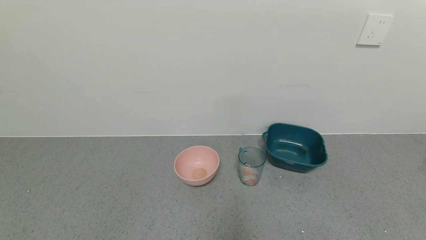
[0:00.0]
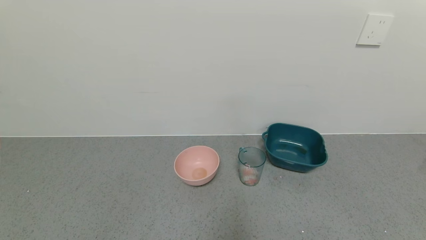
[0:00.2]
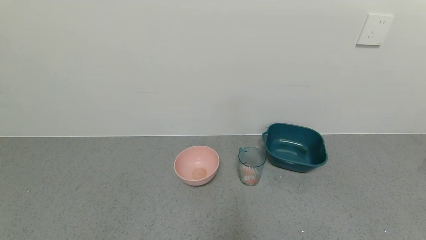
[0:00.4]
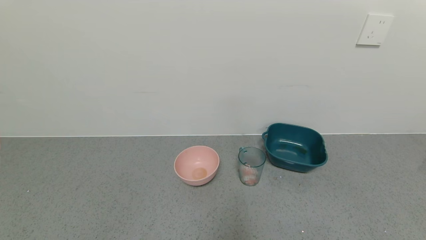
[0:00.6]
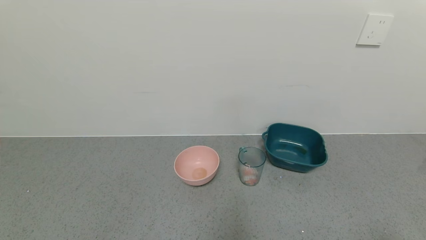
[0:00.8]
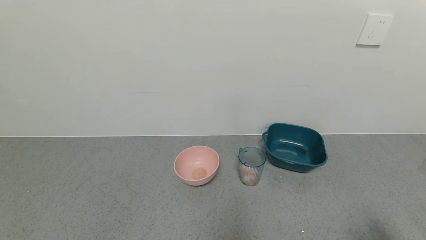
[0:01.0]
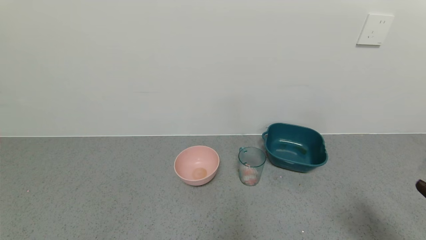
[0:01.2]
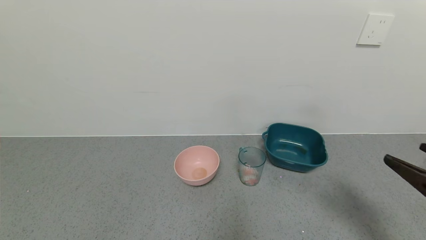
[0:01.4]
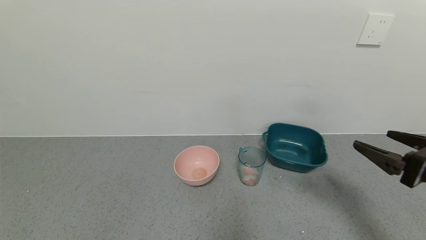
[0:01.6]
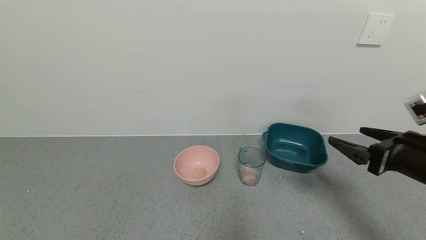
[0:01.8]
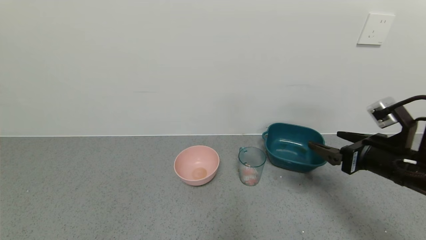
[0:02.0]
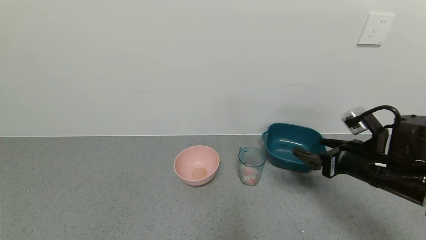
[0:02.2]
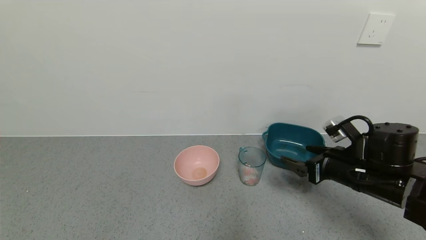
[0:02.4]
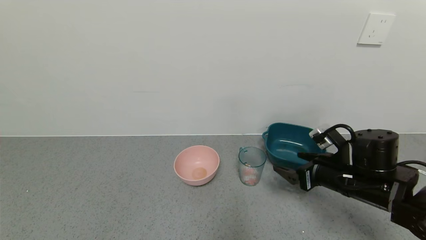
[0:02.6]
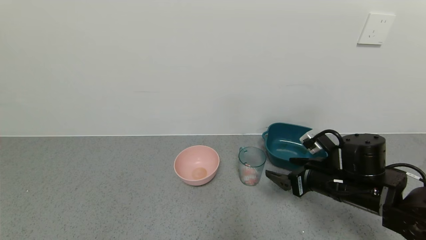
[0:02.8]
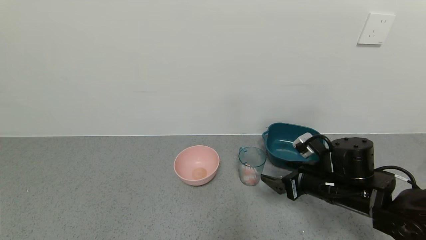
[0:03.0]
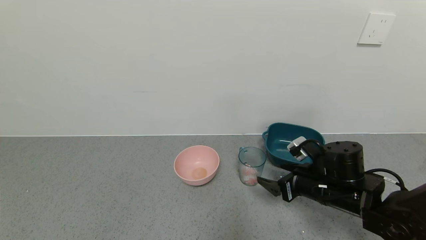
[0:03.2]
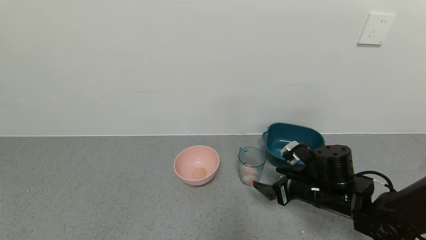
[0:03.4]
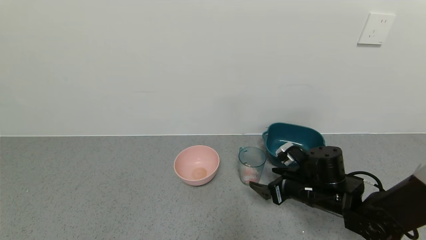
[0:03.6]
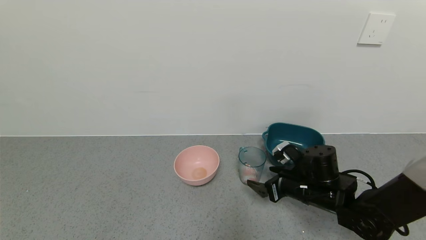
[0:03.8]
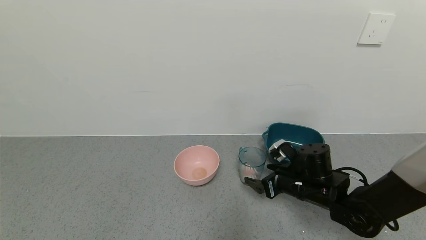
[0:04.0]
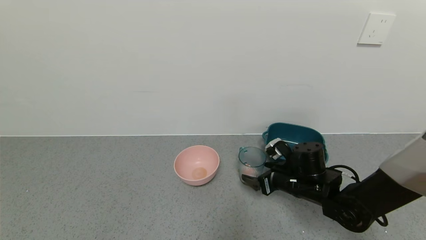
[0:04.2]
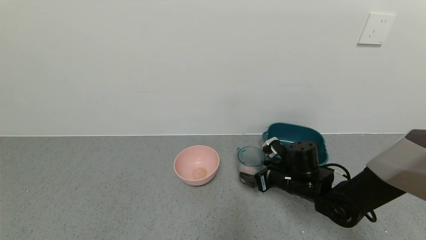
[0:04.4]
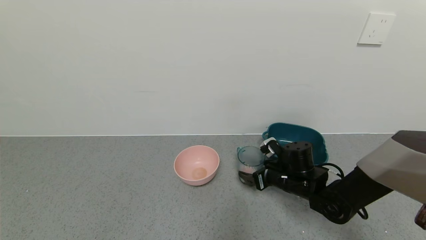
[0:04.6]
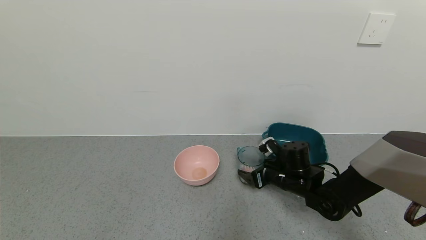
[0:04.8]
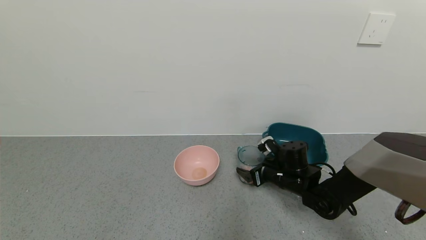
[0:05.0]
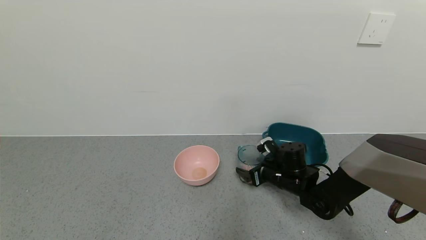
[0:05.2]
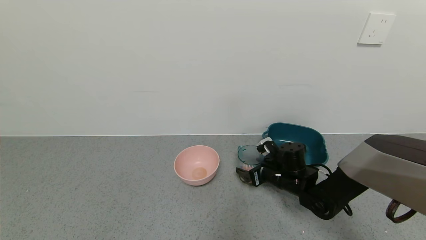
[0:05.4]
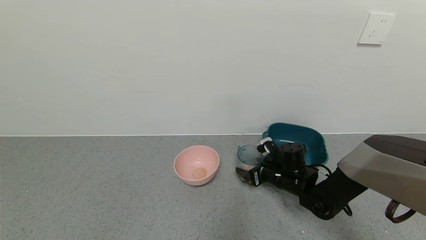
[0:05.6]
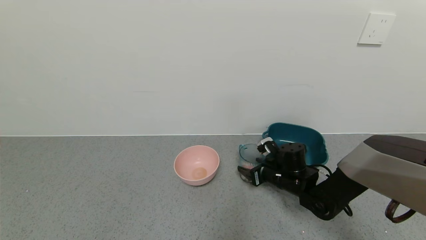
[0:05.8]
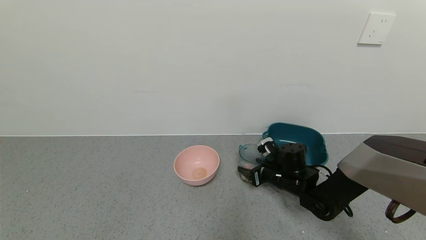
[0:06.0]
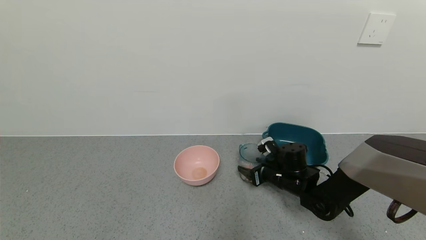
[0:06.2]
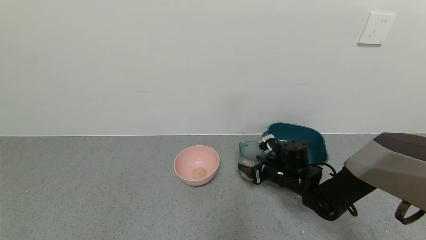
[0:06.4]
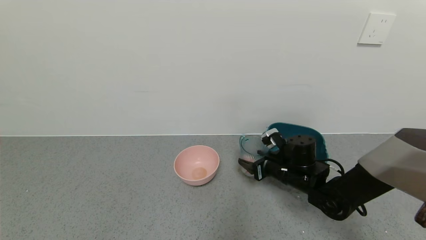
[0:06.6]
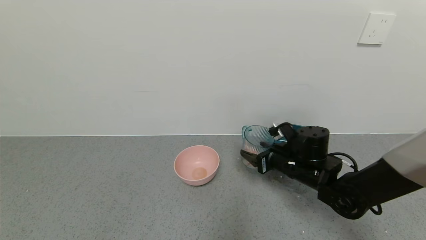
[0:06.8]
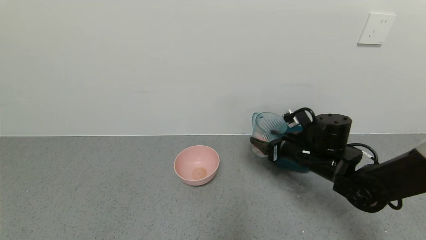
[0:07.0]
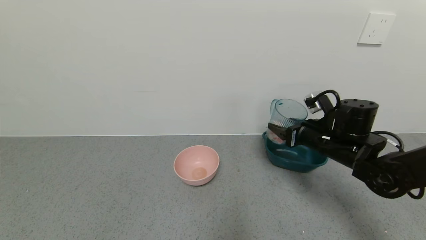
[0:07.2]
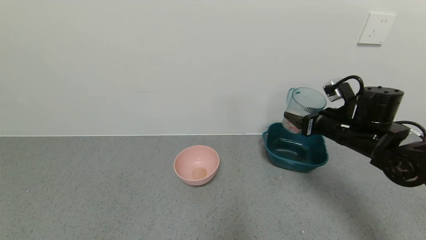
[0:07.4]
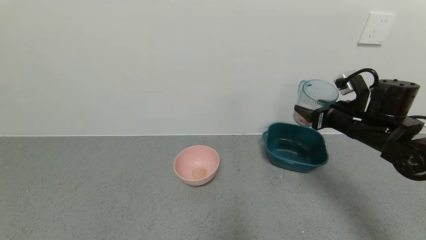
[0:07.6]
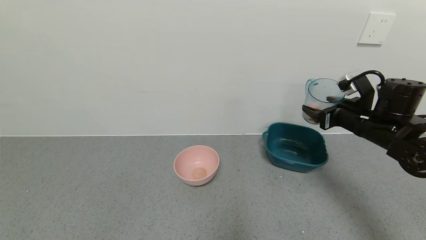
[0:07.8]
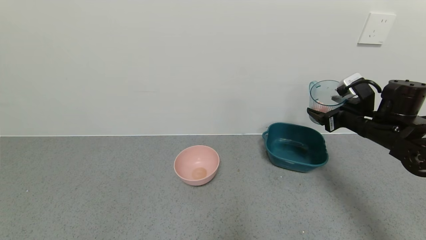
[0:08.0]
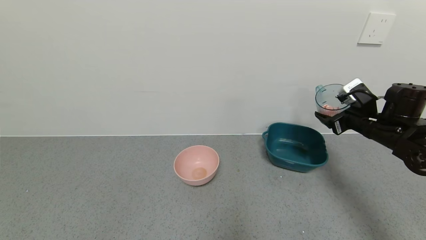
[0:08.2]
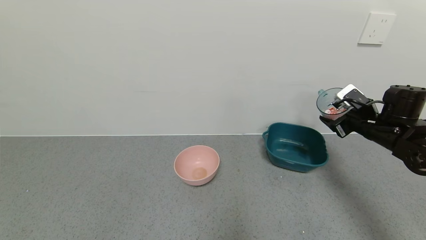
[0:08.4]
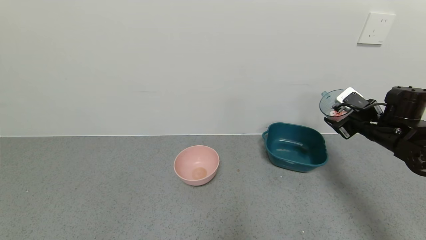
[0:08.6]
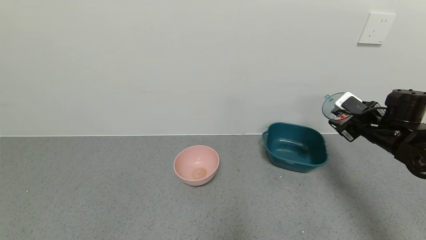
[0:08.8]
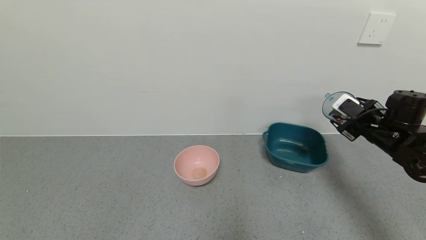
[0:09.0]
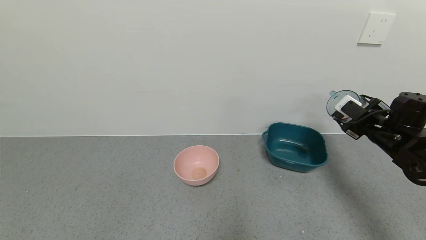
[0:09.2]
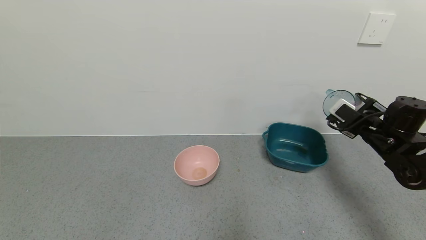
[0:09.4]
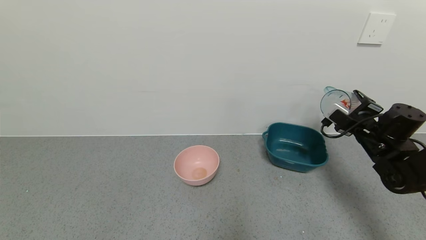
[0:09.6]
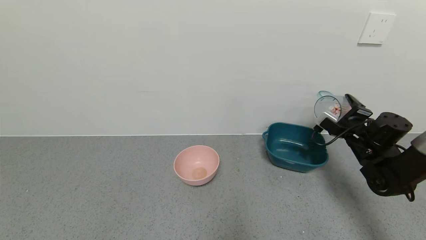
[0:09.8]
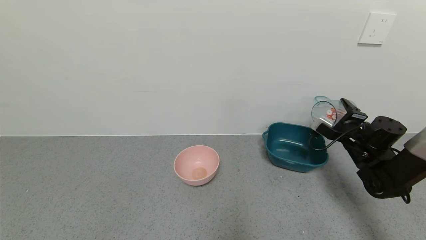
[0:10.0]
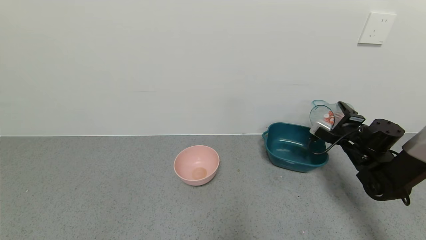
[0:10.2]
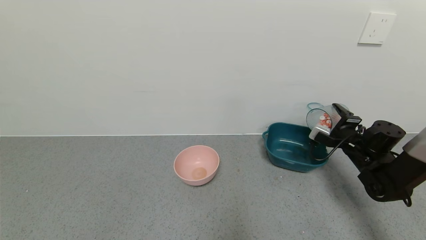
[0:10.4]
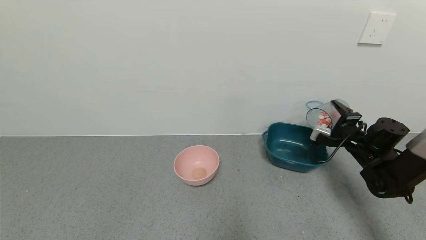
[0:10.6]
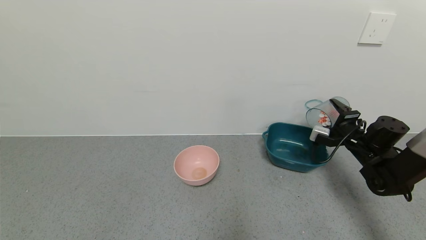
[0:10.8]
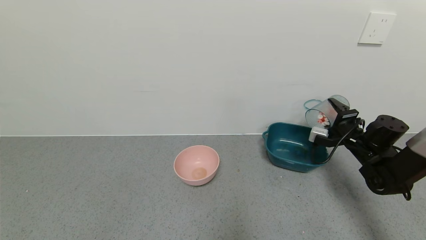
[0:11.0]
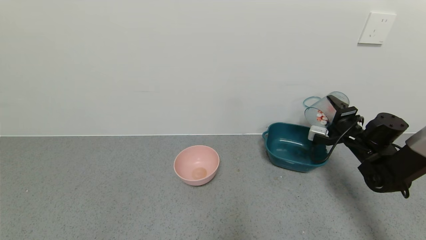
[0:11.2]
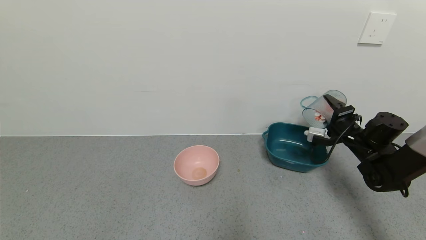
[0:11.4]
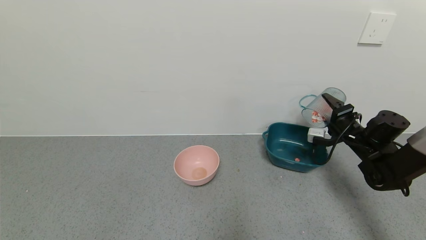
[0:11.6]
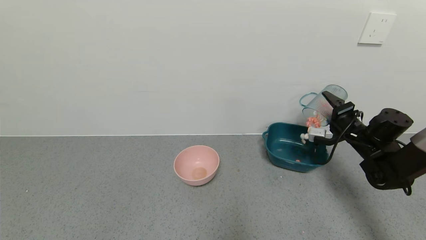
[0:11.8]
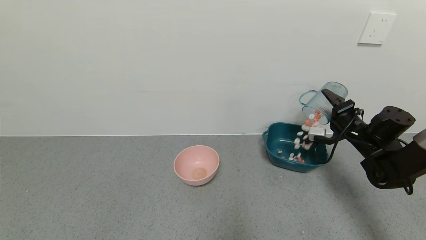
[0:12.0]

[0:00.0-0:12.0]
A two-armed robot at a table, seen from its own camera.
Task of the whole recording: use a gripper to pick up the cup and pour the solid into a bowl or tray.
Step, 0:00.0 to 0:06.0: Grasp the glass of shrimp with the right gripper.
0:00.0 to 0:01.6: The right gripper moves forward and upward, some 25 cm.
0:01.6 to 0:03.0: The right gripper is displaced to the left, downward and forward by approximately 20 cm.
0:03.0 to 0:04.4: The right gripper shifts roughly 5 cm forward.
0:04.4 to 0:06.0: The right gripper closes up.
0:06.0 to 0:07.6: The right gripper goes about 20 cm upward and to the right.
0:07.6 to 0:09.0: The right gripper shifts approximately 5 cm to the right.
0:09.0 to 0:10.4: The right gripper heads downward, covering some 5 cm.

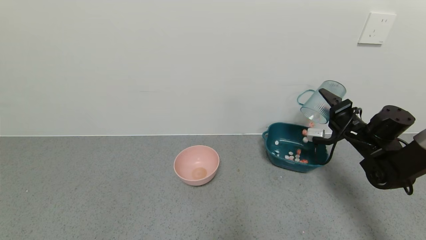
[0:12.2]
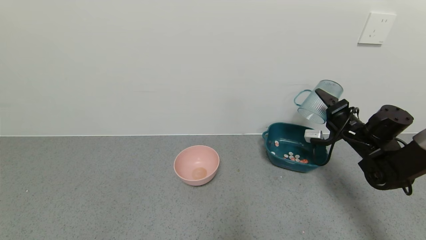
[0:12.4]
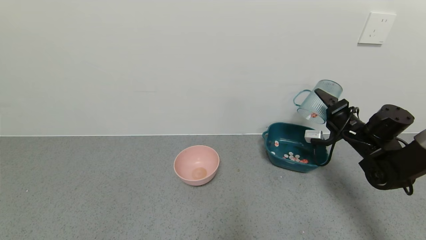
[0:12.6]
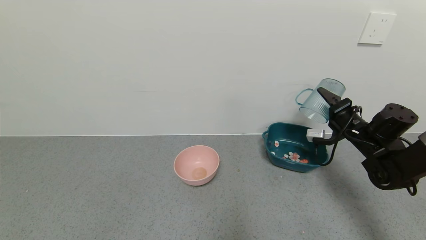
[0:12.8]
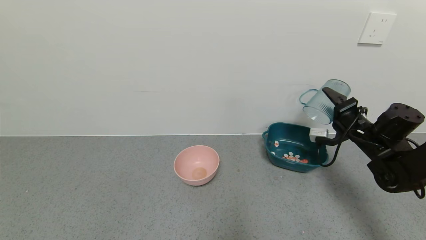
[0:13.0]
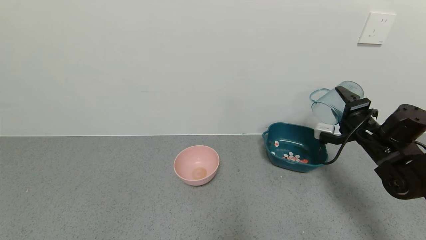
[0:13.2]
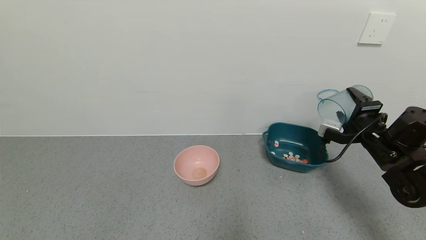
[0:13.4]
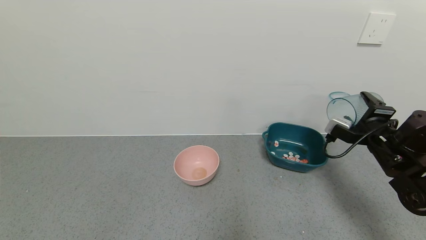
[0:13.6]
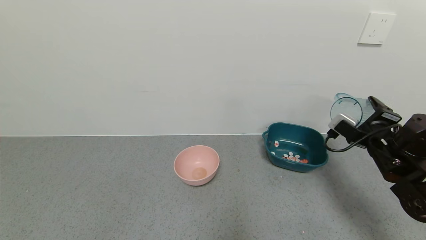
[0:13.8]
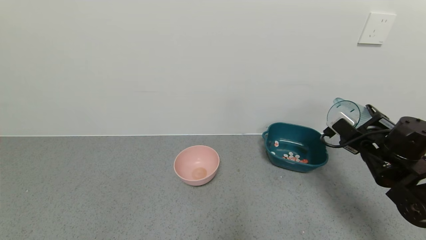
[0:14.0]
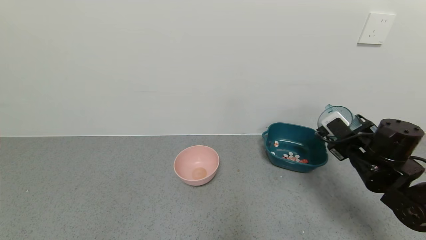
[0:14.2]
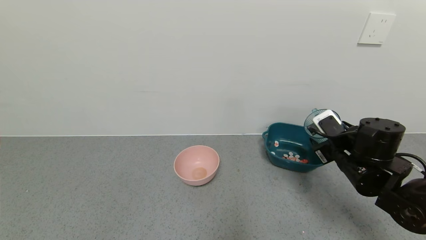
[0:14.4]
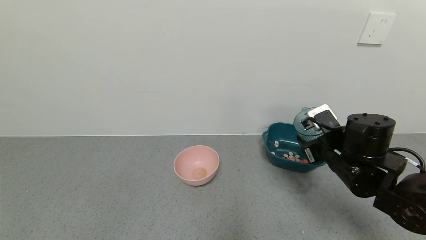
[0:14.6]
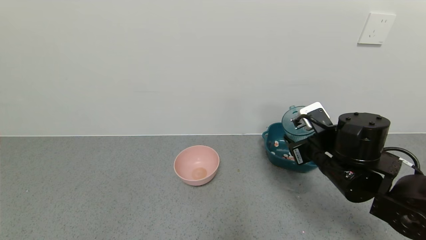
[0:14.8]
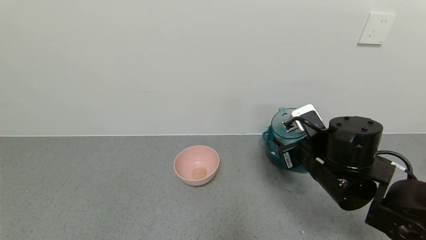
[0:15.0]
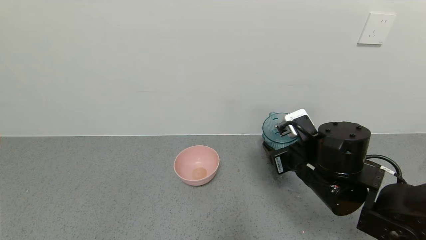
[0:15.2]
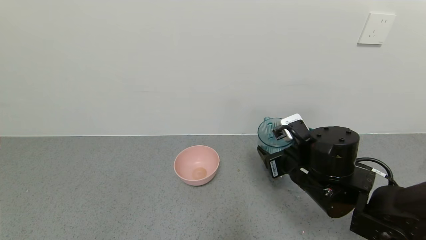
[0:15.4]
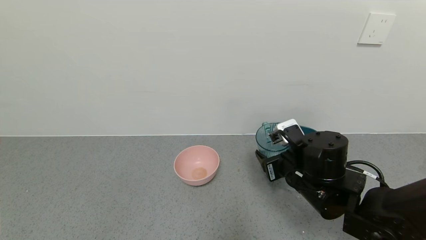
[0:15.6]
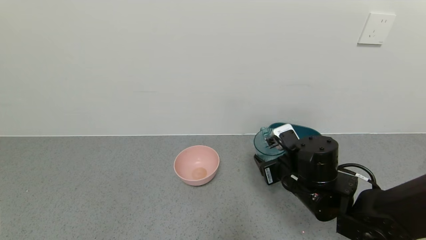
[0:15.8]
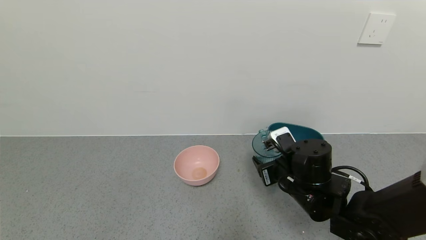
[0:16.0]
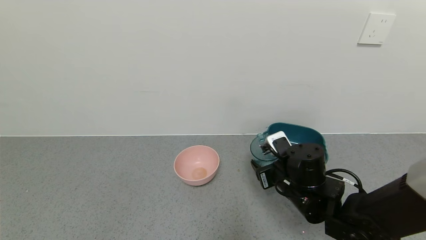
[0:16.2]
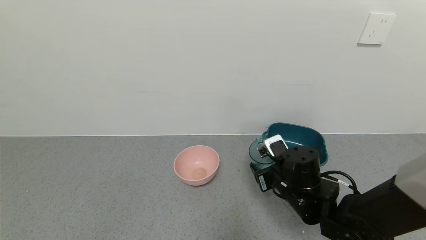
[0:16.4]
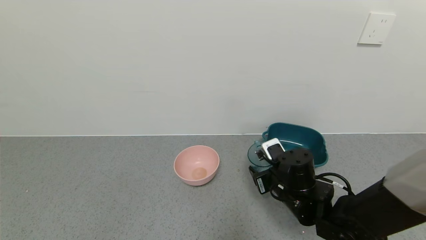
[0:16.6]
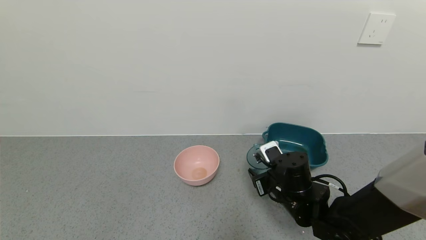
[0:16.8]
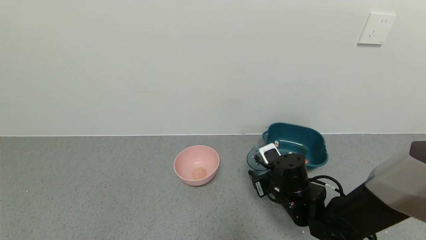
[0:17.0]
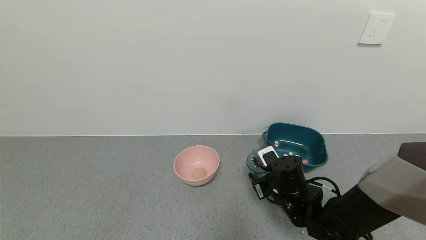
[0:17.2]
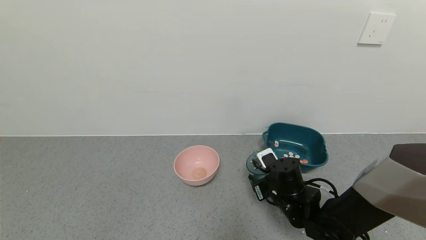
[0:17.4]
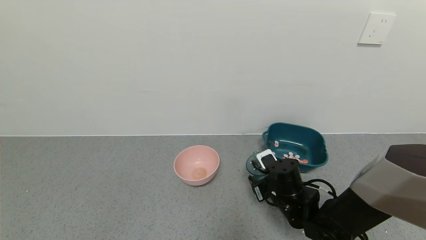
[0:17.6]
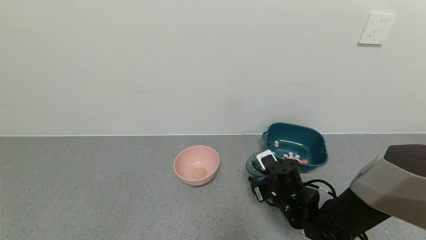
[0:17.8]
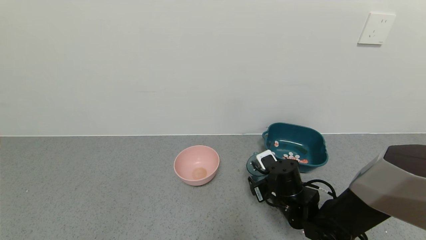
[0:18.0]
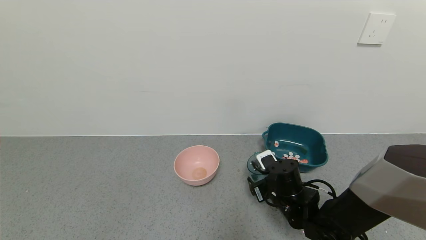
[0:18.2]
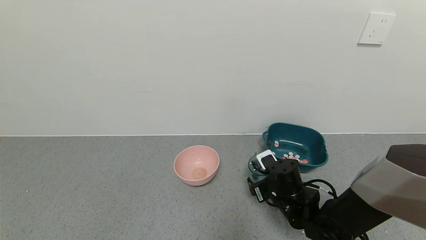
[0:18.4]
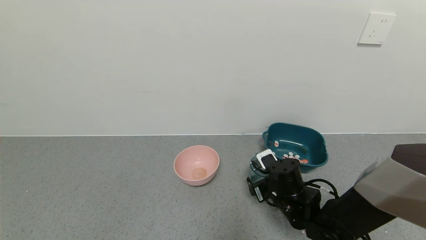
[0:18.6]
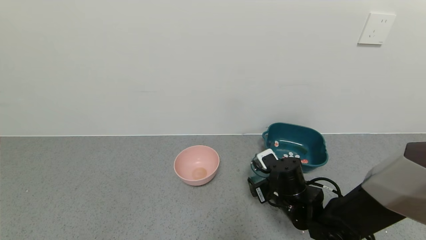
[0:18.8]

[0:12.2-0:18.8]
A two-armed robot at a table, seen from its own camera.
Task of the whole recording: use a gripper to pick up the cup and pour the solid into a bowl or tray.
0:12.2 to 0:13.8: The right gripper heads backward, covering roughly 10 cm.
0:13.8 to 0:15.4: The right gripper moves to the left, roughly 20 cm.
0:15.4 to 0:17.2: The right gripper heads downward, covering about 10 cm.
0:17.2 to 0:18.8: The right gripper opens.
